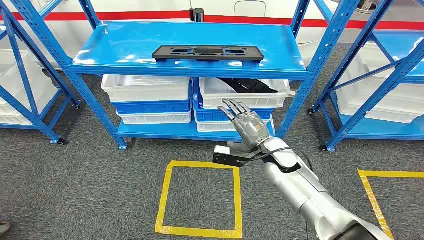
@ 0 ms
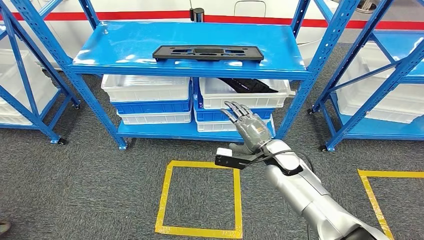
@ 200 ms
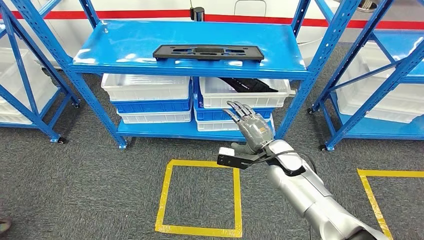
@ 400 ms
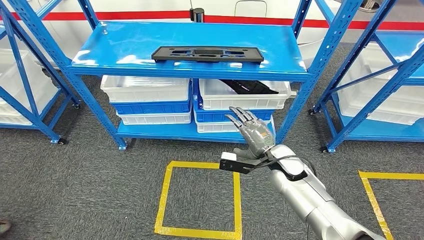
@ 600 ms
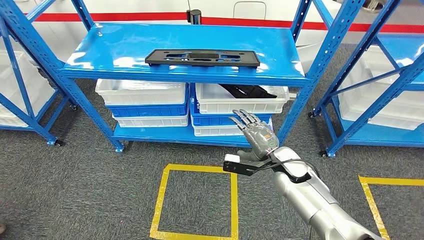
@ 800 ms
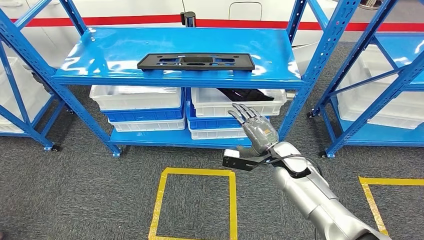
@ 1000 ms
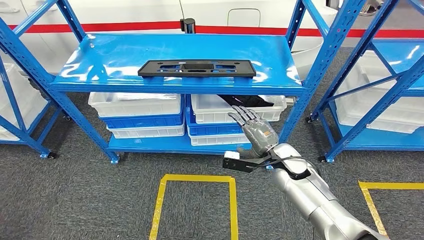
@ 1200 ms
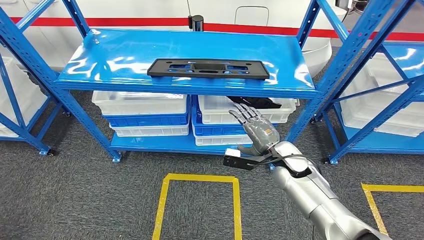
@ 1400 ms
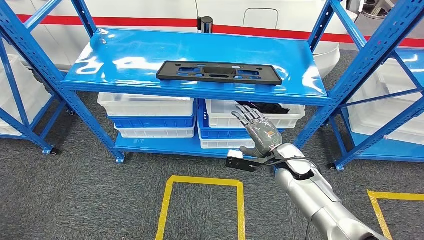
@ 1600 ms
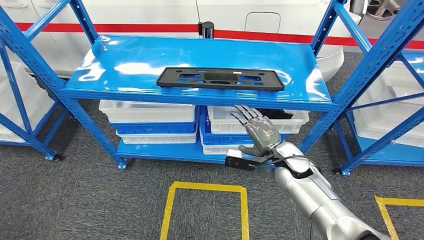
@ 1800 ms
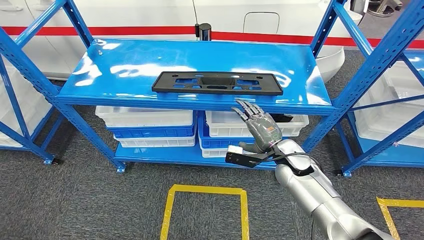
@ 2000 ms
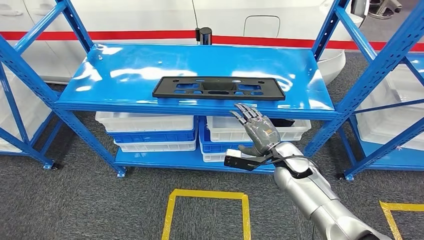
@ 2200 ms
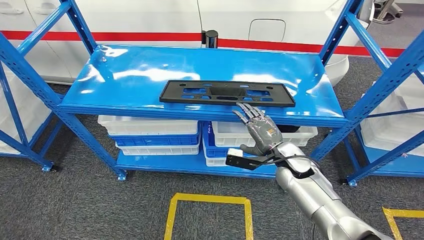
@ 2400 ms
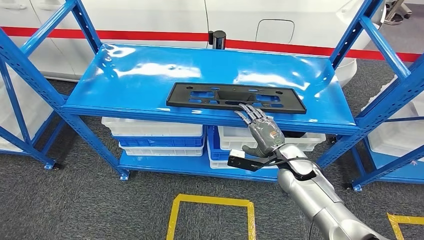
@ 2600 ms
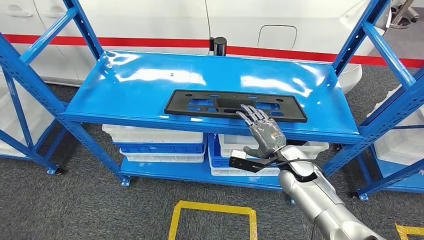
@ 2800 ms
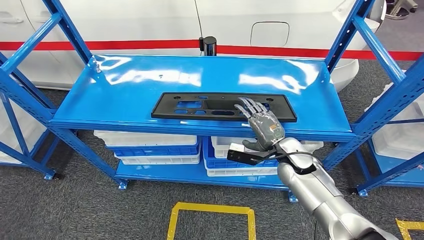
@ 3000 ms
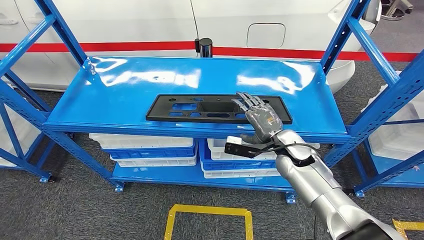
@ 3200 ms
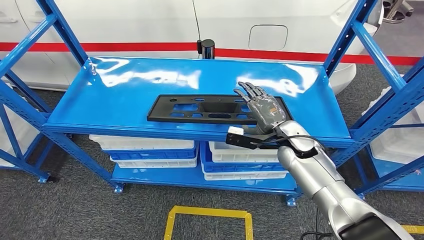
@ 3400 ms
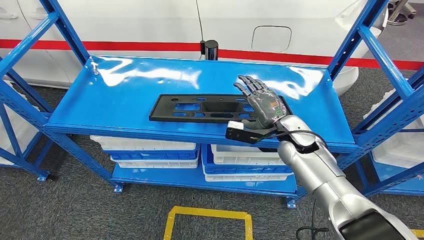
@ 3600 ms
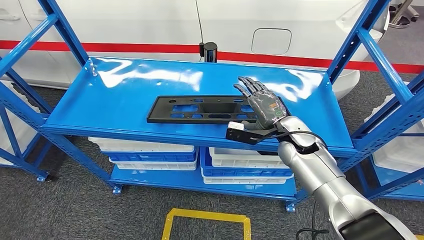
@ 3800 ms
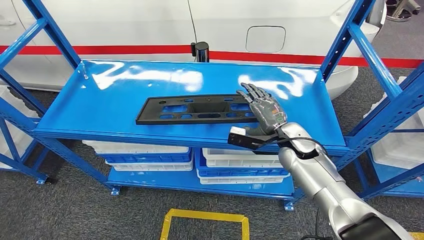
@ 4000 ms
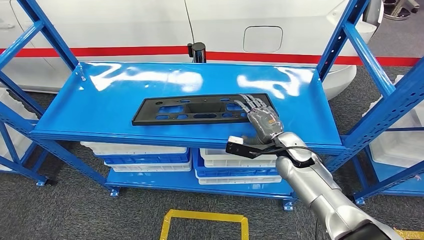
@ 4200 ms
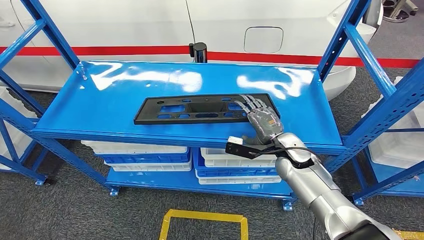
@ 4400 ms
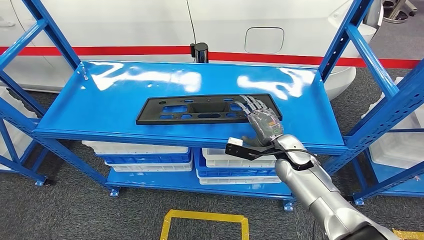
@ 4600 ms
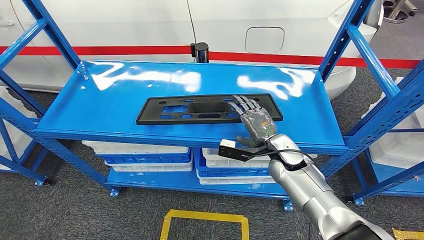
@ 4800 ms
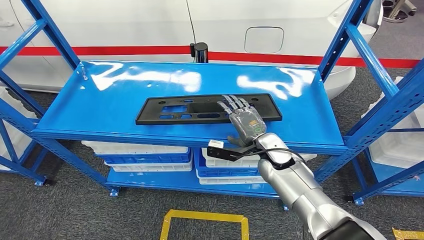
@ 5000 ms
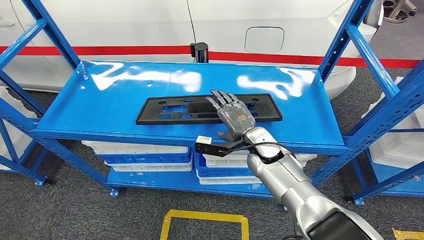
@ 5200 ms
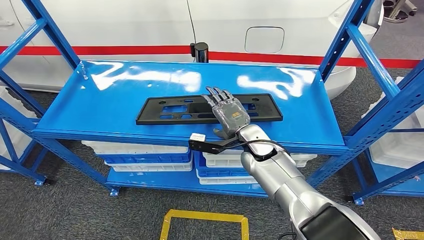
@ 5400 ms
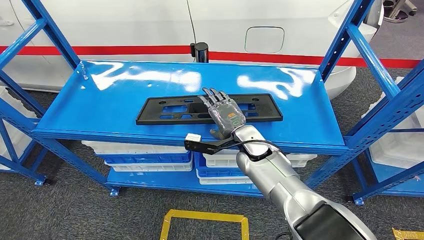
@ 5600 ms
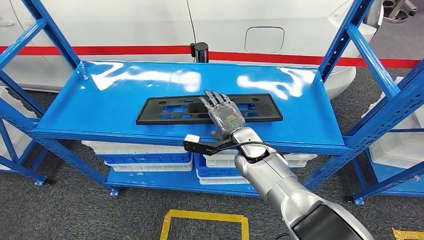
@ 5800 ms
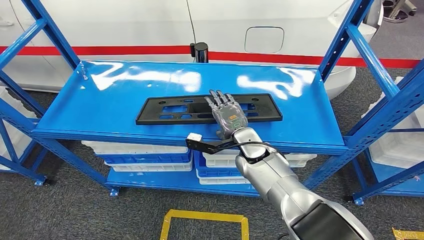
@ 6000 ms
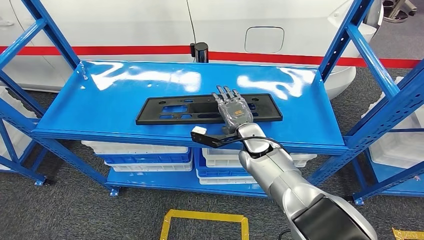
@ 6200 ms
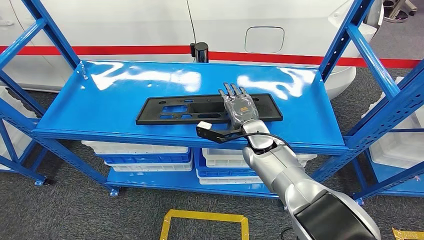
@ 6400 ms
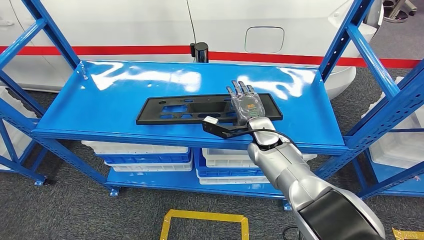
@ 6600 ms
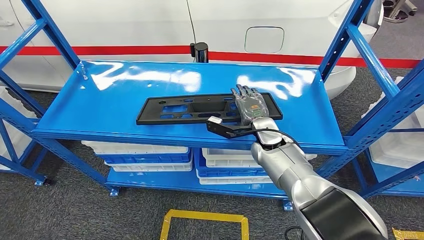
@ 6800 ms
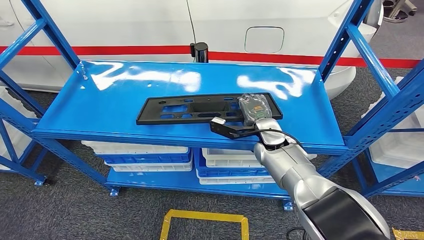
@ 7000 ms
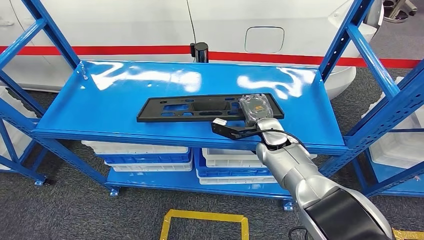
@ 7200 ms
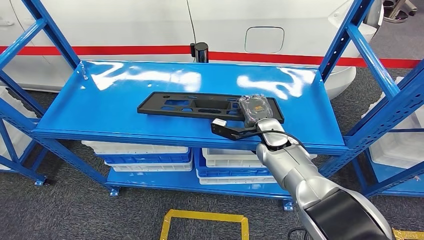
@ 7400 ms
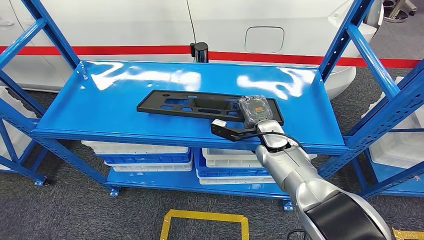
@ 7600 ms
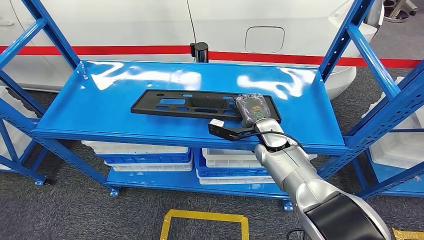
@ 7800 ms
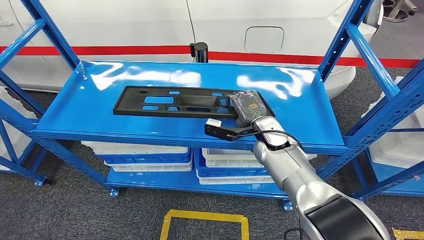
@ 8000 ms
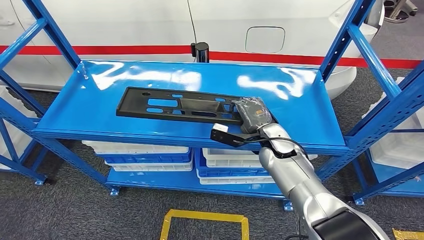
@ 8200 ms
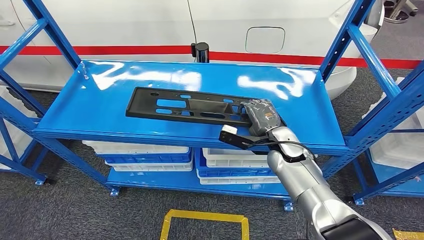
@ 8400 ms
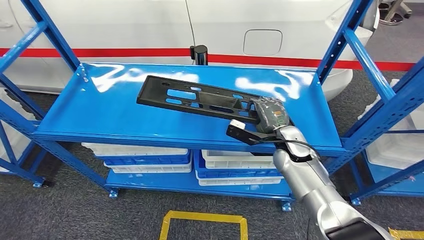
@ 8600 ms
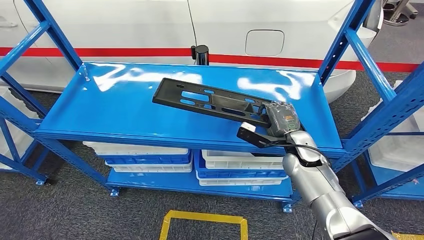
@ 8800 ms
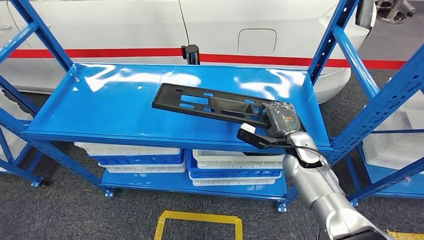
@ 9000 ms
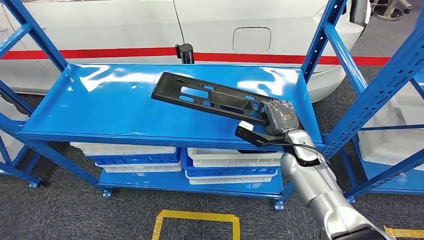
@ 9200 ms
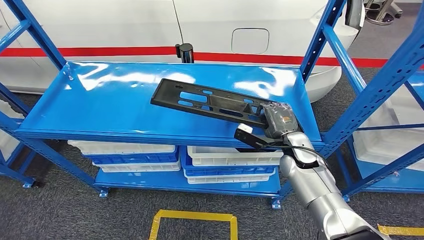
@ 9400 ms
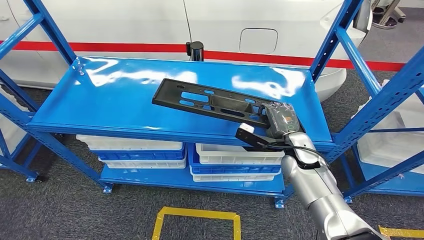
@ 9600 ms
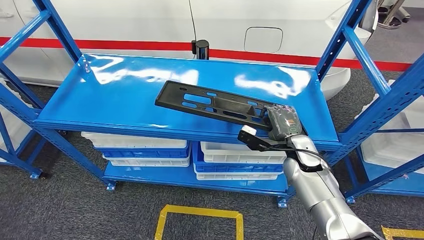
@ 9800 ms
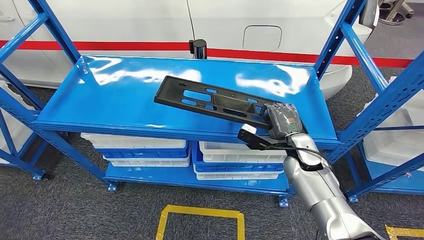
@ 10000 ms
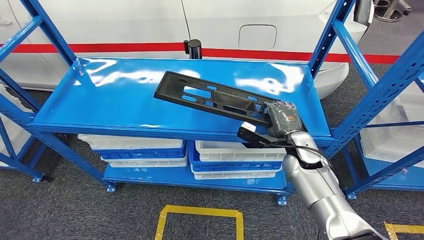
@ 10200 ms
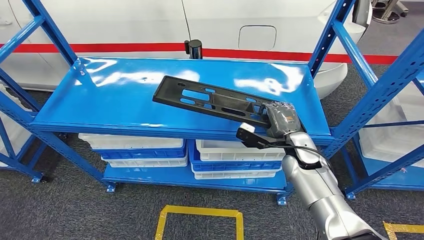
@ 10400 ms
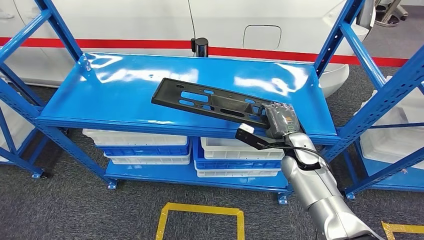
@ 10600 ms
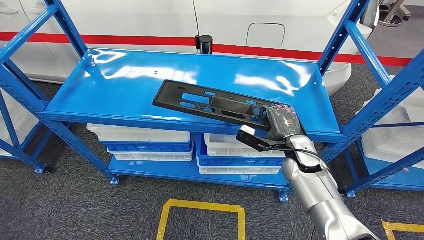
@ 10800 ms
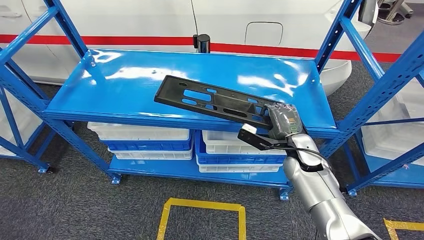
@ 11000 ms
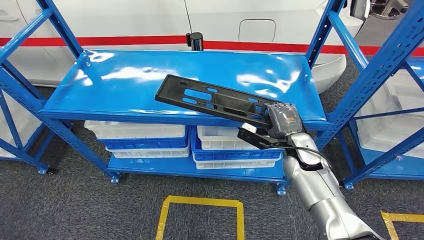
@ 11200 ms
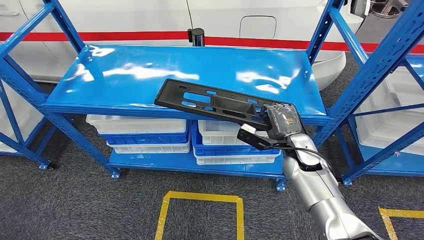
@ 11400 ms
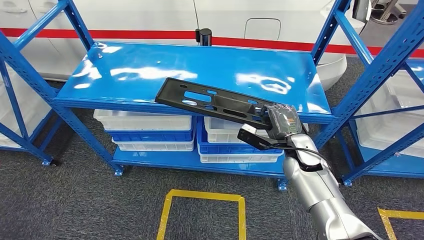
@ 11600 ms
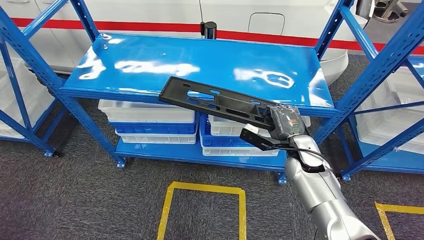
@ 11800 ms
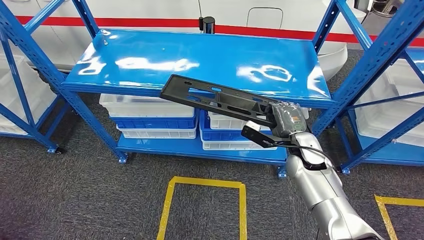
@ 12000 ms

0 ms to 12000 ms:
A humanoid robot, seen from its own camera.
Step, 0 ms to 8800 ms: Pick up the large material from the shelf.
4400 ms to 6000 ms: The right hand heads to the left, covering some 10 cm.
6000 ms to 7600 ms: The right hand is displaced to the right by about 5 cm.

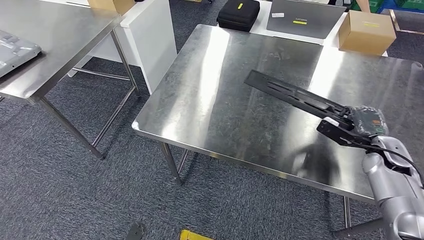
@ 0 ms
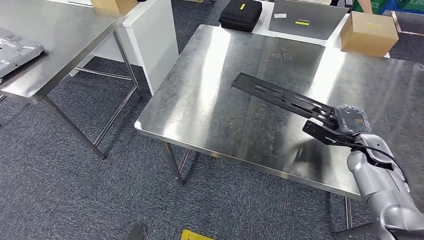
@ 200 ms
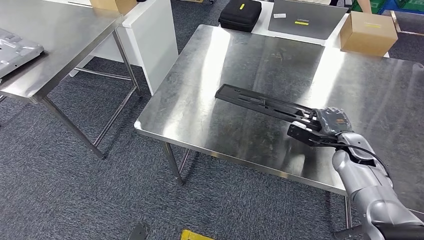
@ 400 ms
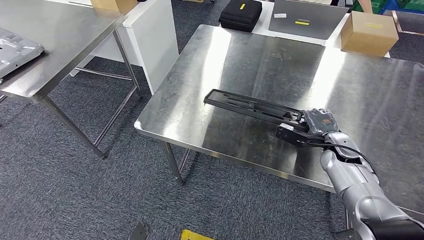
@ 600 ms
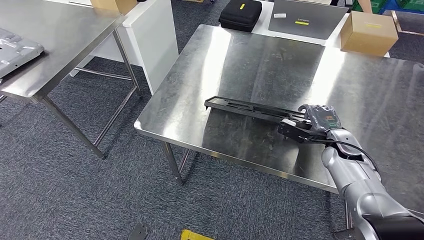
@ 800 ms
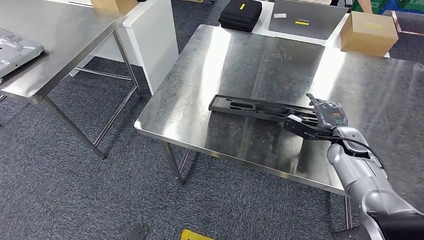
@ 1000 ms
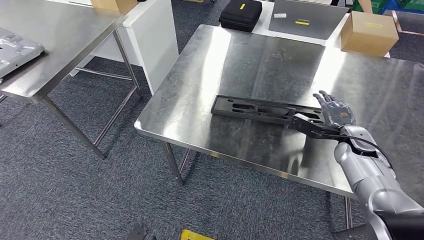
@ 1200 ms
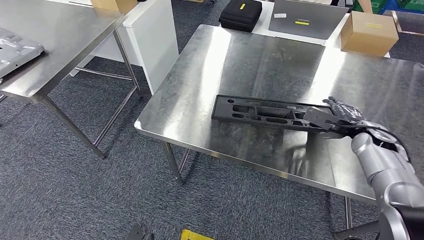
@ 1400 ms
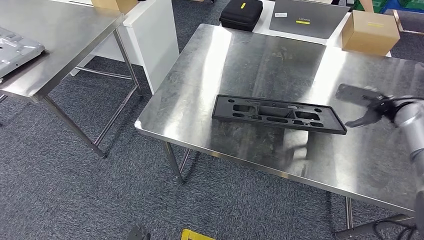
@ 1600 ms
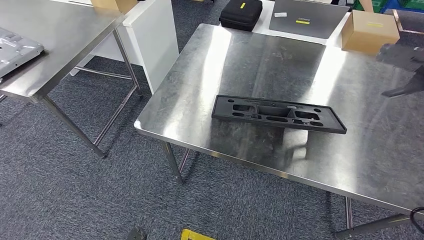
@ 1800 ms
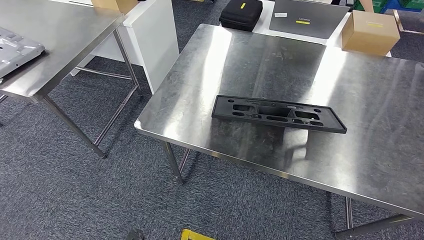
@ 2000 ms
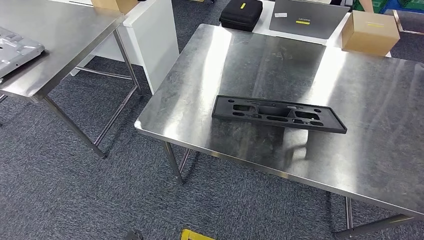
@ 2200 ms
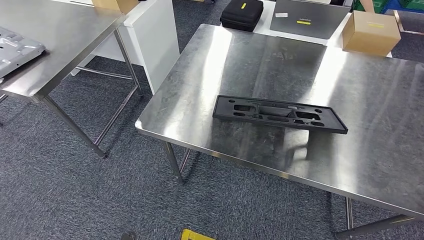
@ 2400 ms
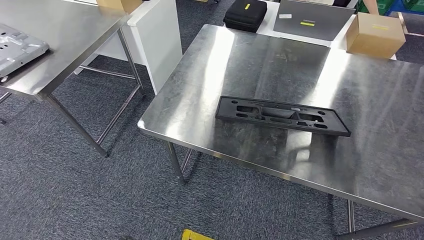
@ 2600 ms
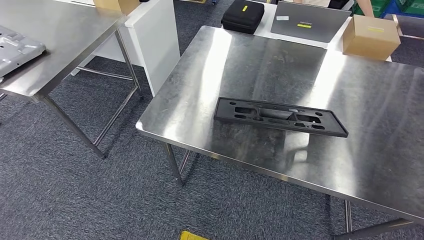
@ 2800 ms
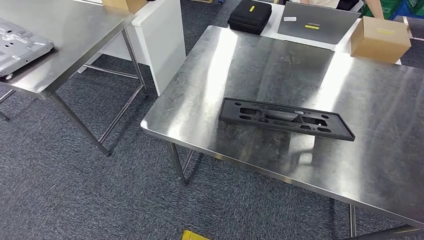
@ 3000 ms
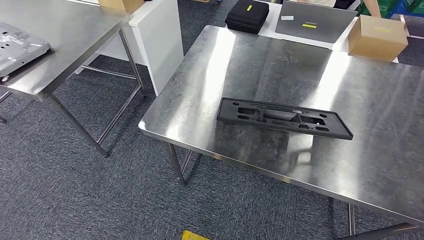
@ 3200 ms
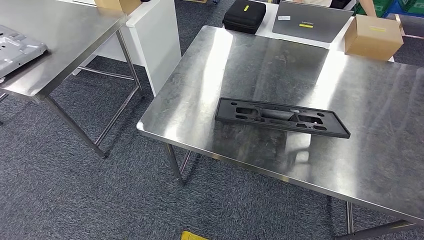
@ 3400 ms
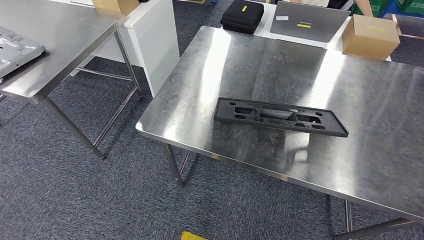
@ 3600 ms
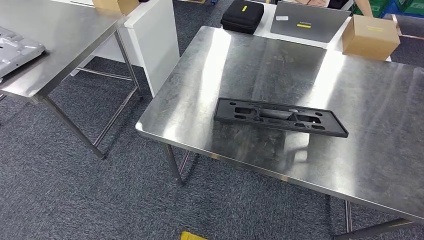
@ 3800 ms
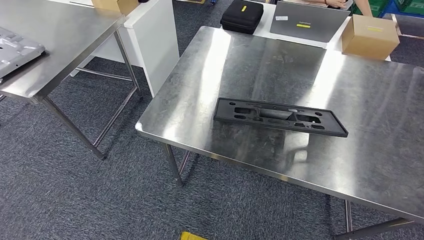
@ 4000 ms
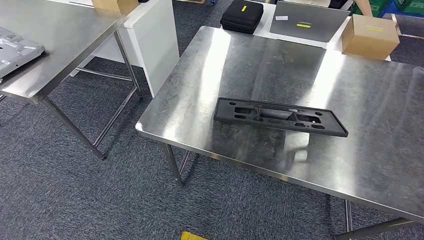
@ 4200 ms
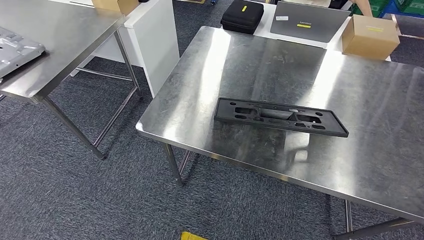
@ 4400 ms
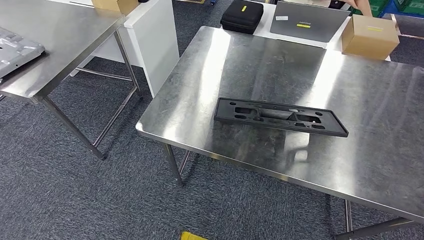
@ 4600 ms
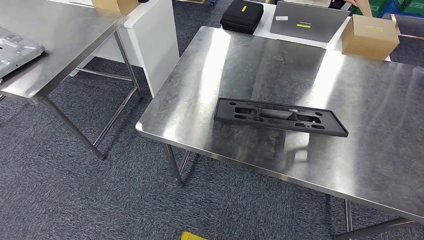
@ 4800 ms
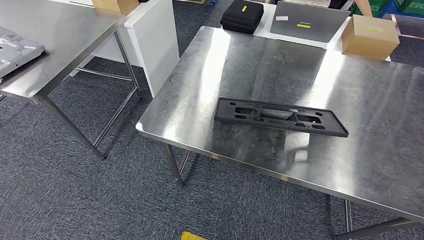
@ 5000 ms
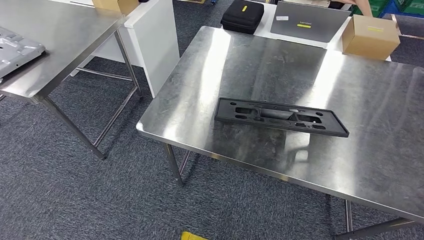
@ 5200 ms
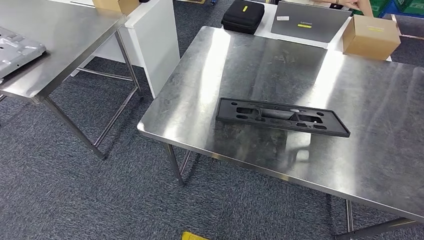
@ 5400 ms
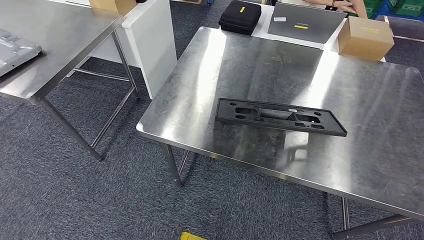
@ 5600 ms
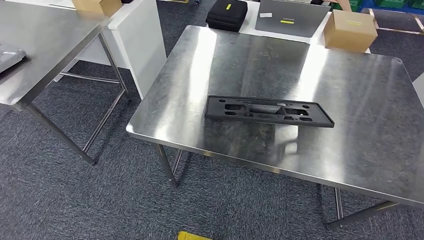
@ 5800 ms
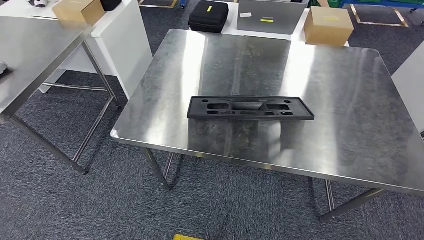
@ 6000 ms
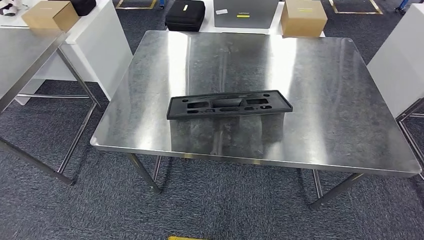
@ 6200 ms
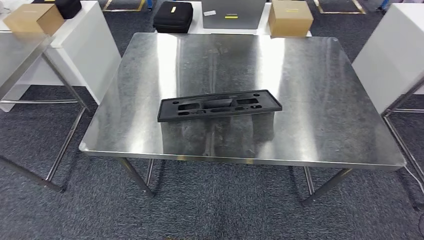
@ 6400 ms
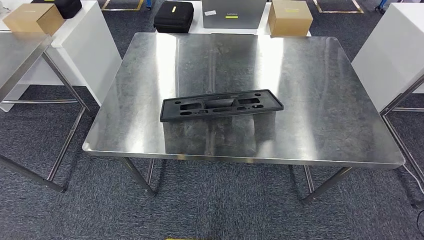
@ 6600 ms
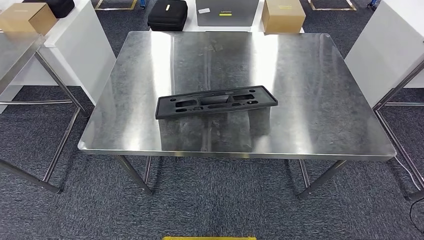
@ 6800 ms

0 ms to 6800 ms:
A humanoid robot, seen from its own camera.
Step, 0 ms to 3800 ms: Insert the large material into the corresponding slot on the workbench.
0 ms to 1400 ms: The right hand moves some 10 cm to the left and comes back.
1400 ms to 2800 ms: The left hand moves backward, roughly 5 cm. Meanwhile the right hand shifts roughly 40 cm to the right, backward and upward.
2800 ms to 4000 ms: The right hand is displaced downward, backward and to the left by about 40 cm.
4000 ms to 5400 ms: The right hand goes about 30 cm to the left and downward.
